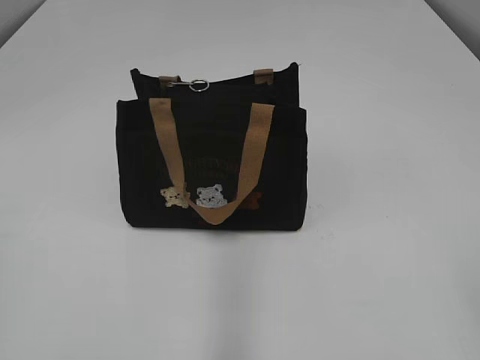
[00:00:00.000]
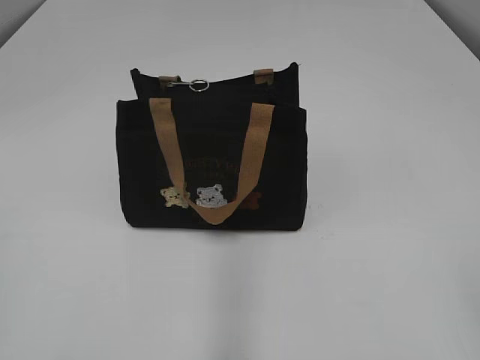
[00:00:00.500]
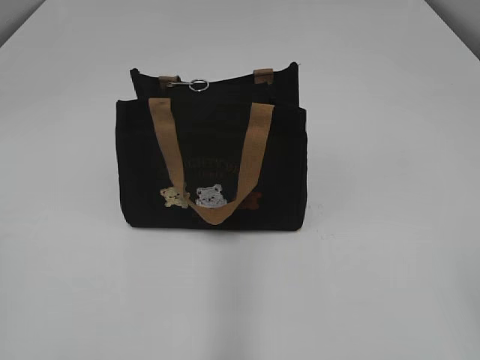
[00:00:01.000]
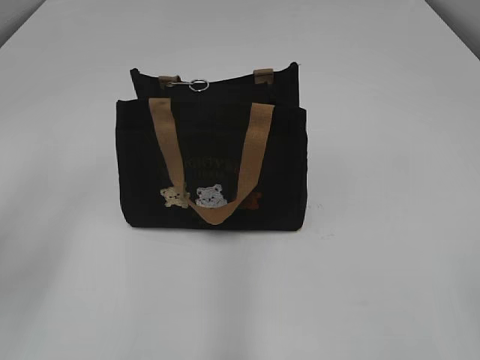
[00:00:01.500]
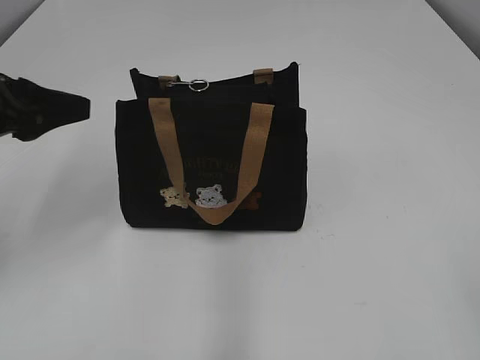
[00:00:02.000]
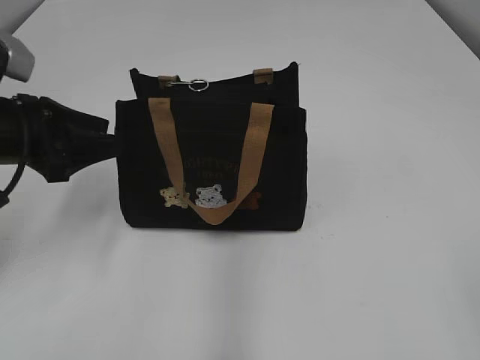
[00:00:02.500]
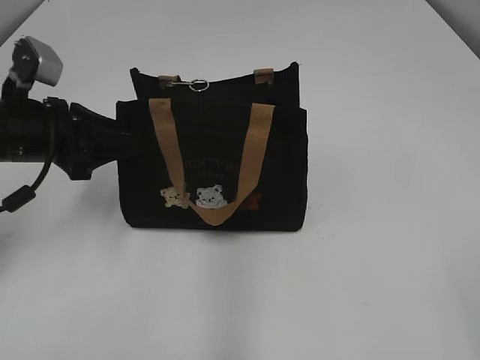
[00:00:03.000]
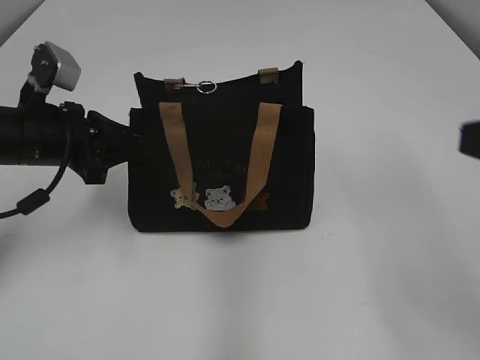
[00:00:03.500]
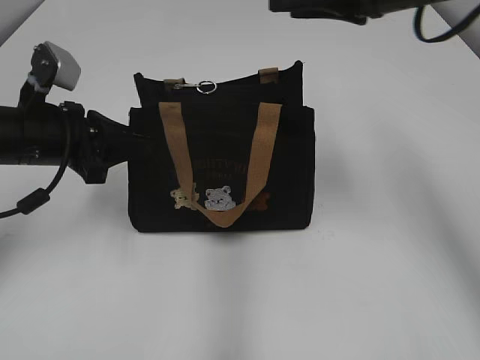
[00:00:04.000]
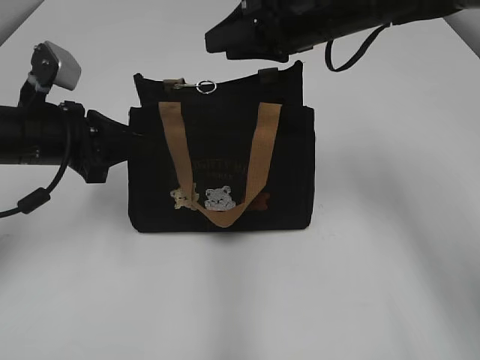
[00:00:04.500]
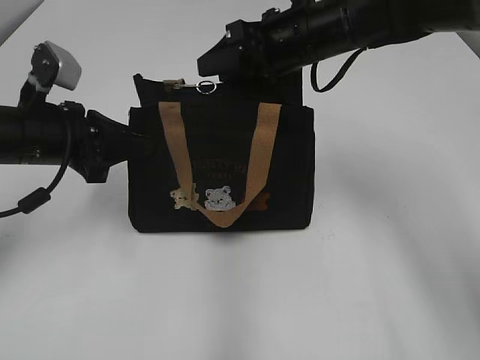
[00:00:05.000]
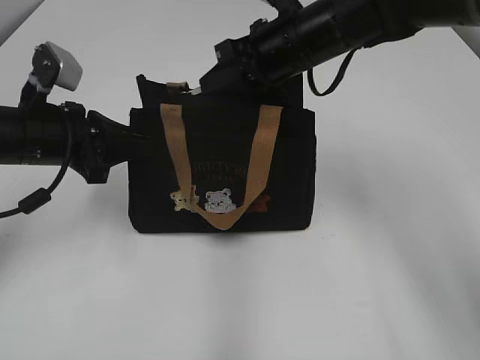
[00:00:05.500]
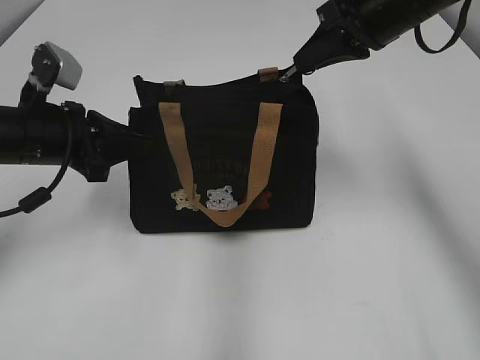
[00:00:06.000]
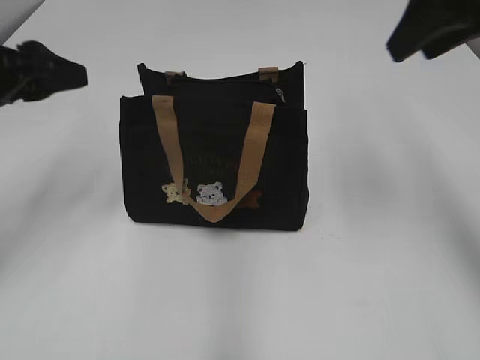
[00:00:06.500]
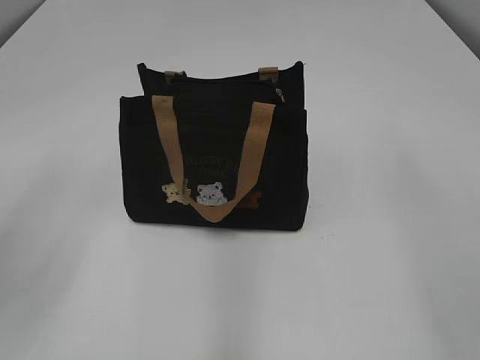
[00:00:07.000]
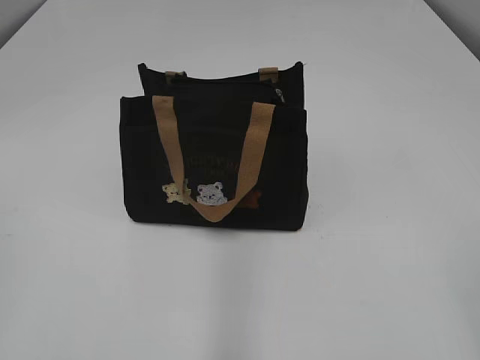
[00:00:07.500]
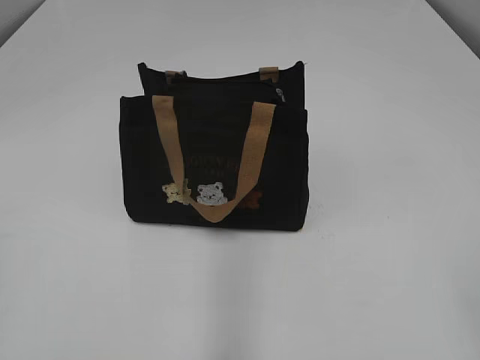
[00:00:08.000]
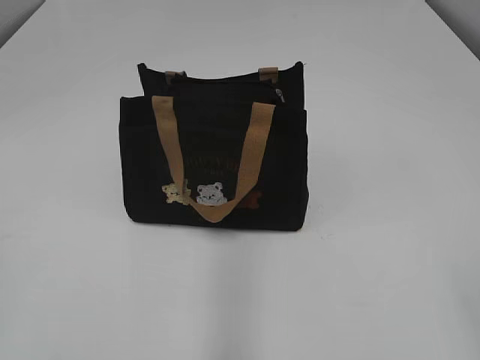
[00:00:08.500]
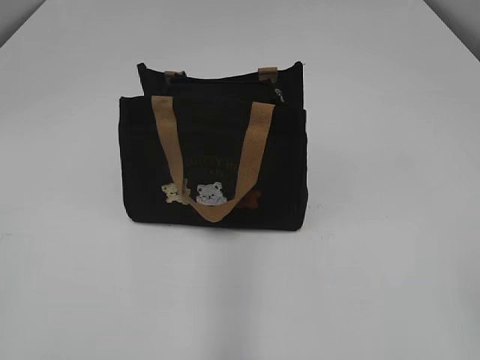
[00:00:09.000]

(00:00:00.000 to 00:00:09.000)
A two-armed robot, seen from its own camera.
Step, 00:00:00.000 - 00:00:06.000: Pull open the zipper with your right hand.
00:00:02.000 - 00:00:04.500: The right gripper goes approximately 40 cm forward and to the left; the left gripper heads downward, covering about 5 cm, and closes.
00:00:04.500 - 00:00:07.000: The left gripper travels backward and upward by about 20 cm, and opens its fingers. Meanwhile the right gripper shifts roughly 30 cm backward and to the right, and closes, then opens again.
00:00:07.000 - 00:00:09.000: The left gripper is displaced backward by some 15 cm.
